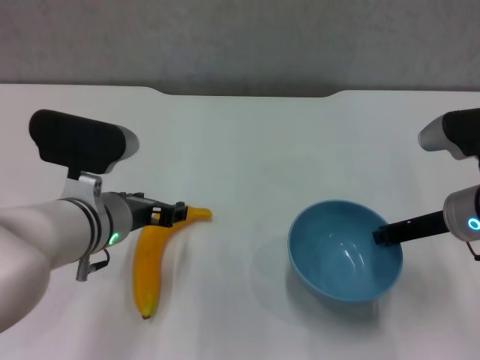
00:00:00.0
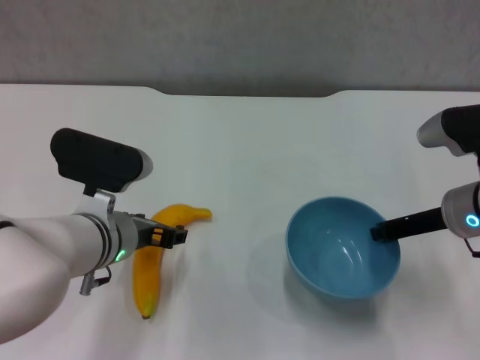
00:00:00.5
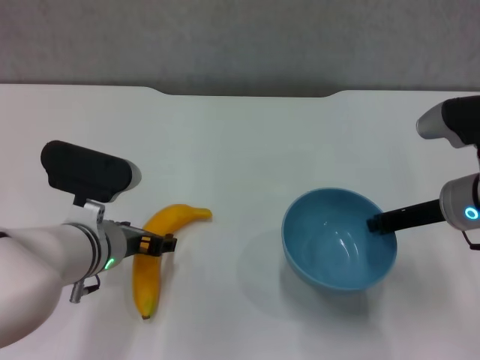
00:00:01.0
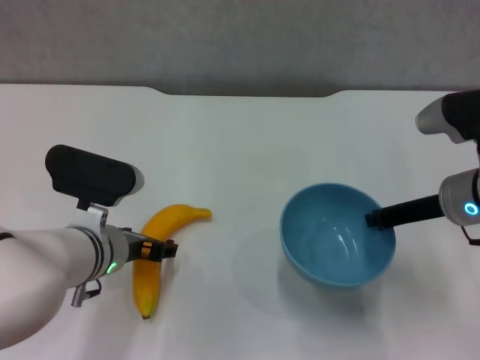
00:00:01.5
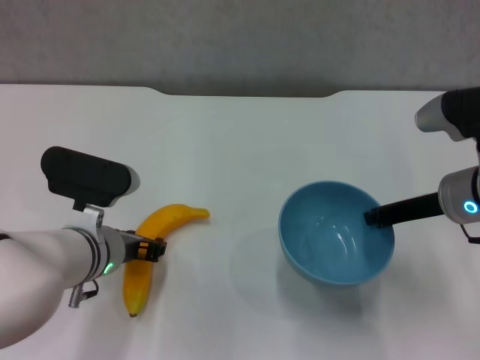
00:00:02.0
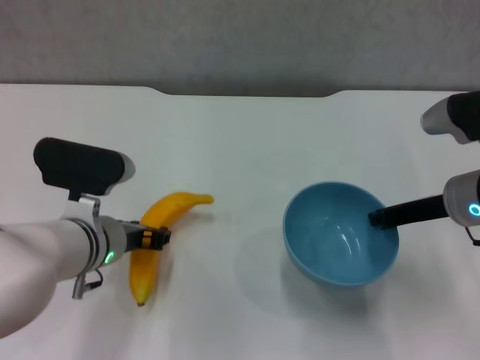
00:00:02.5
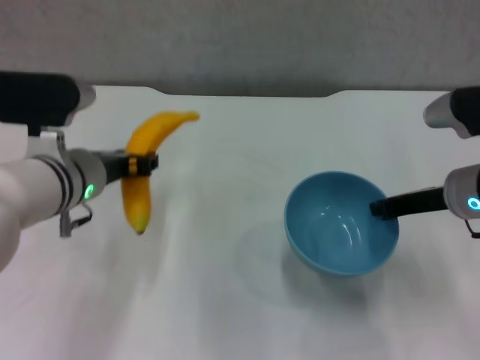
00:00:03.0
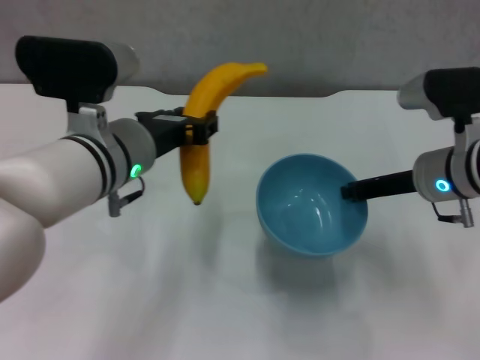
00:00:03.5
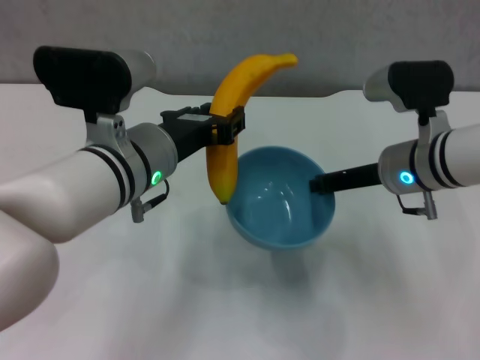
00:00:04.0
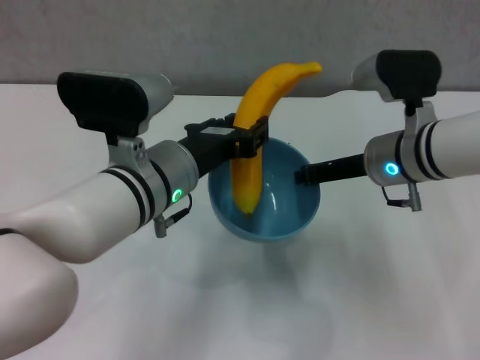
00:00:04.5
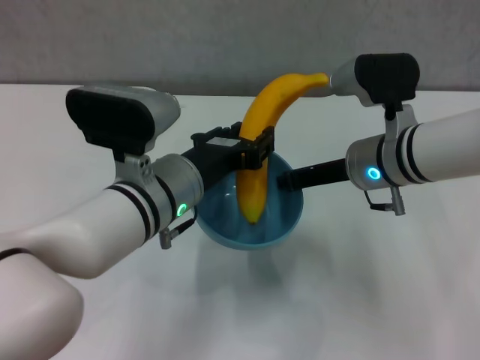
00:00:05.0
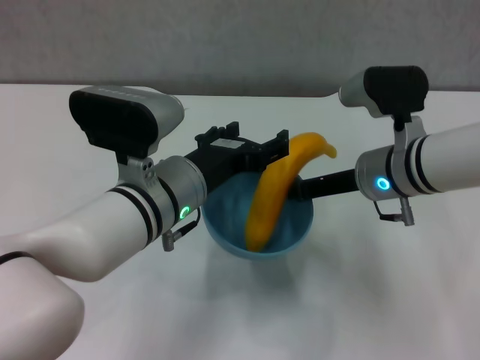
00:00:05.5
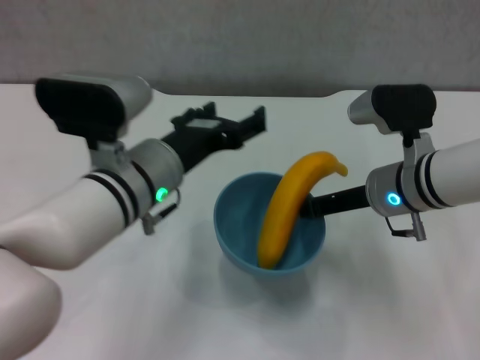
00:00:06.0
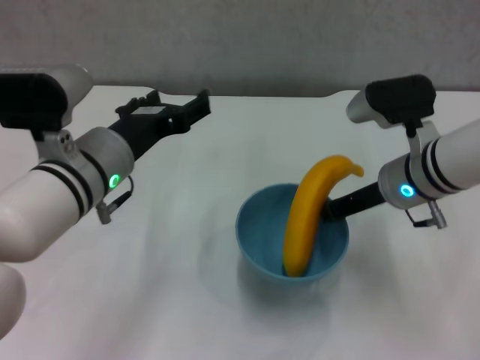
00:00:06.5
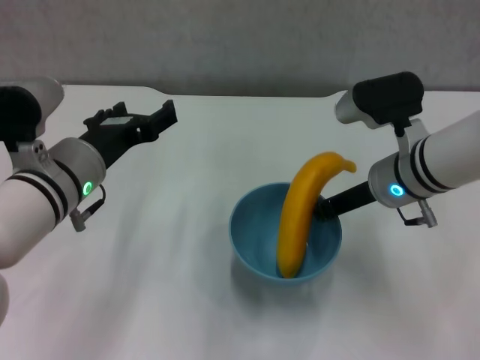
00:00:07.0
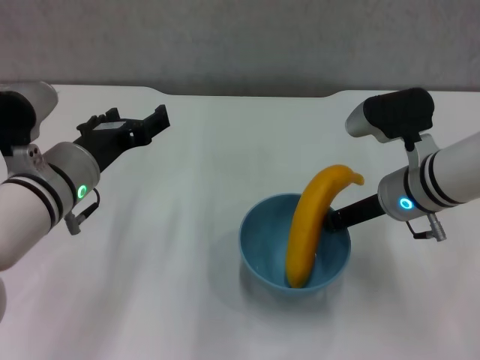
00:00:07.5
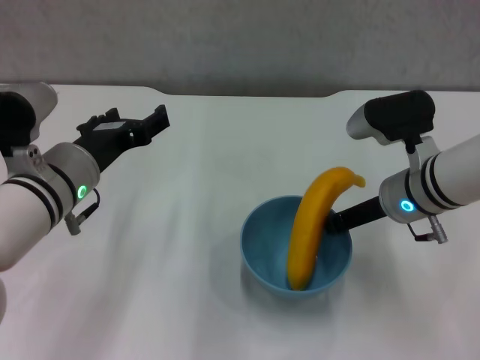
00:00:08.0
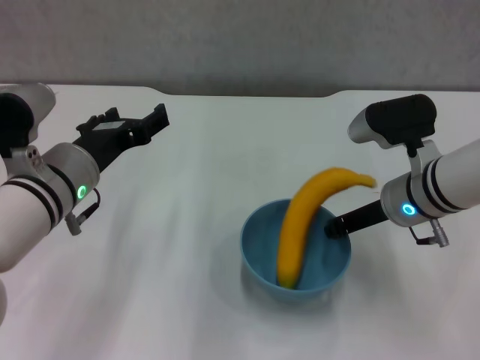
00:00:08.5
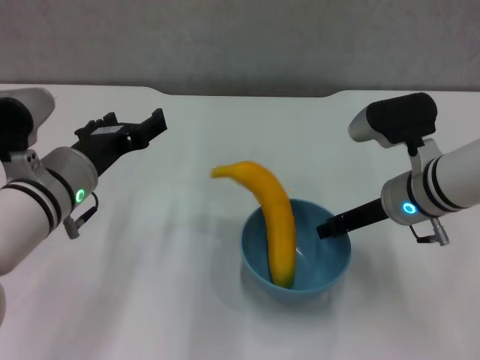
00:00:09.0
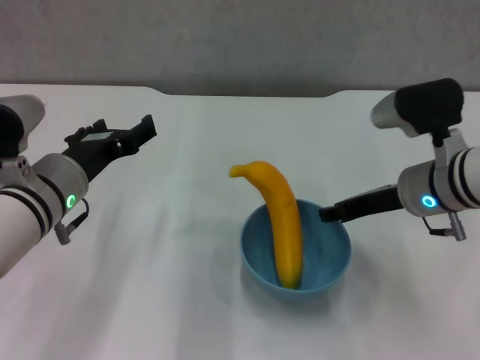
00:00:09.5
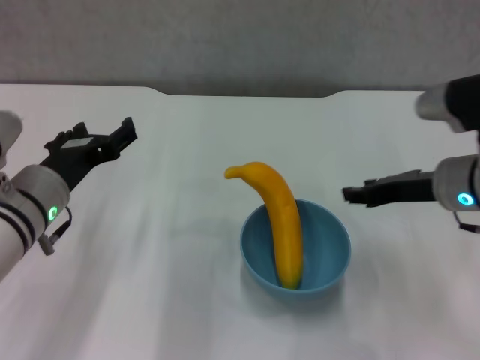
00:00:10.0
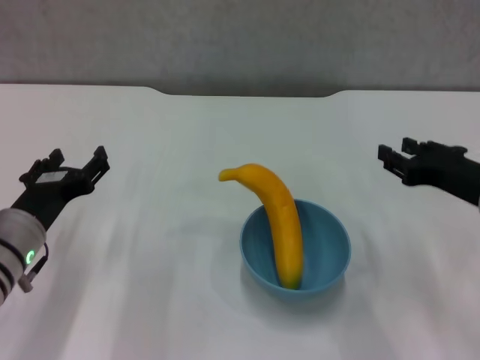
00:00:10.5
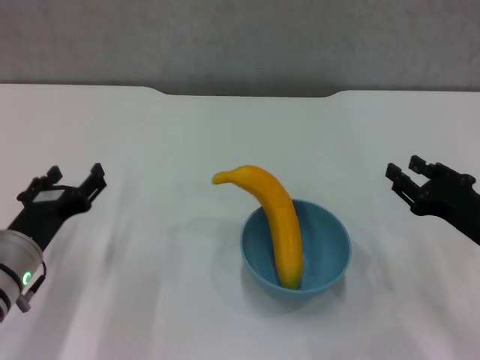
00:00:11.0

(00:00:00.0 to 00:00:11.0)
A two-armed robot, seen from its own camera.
Step, 00:00:00.5 - 00:00:01.5: Grasp the banana with left gripper.
Step, 00:00:02.5 - 00:00:05.0: Place the banana in the blue bowl with left gripper.
Step, 00:00:06.0 - 00:00:09.5: Place the bowl on the table with right gripper.
00:00:00.0 - 00:00:02.0: The grippers make only small movements.
00:00:02.0 - 00:00:03.5: The left gripper travels upward by approximately 10 cm.
00:00:03.5 - 00:00:05.5: The right gripper heads to the left, covering some 5 cm, while the left gripper ends up some 5 cm from where it was, and opens.
00:00:05.5 - 00:00:07.5: The left gripper is displaced to the left by approximately 10 cm.
00:00:07.5 - 00:00:09.0: Neither gripper changes place.
00:00:09.0 - 00:00:11.0: The left gripper moves downward and to the left, some 10 cm. The right gripper is displaced to the right and backward by about 15 cm.
